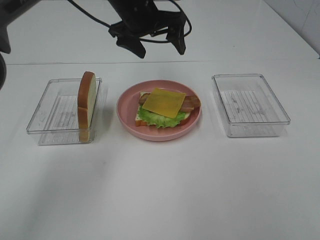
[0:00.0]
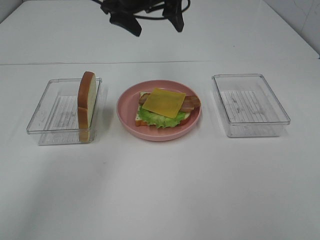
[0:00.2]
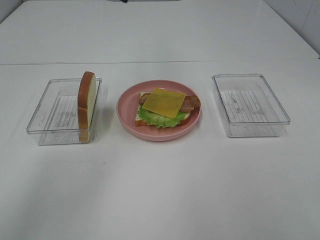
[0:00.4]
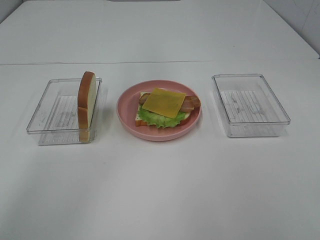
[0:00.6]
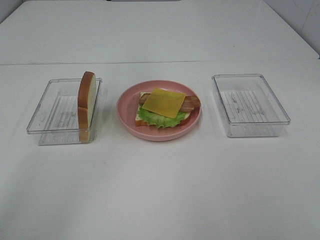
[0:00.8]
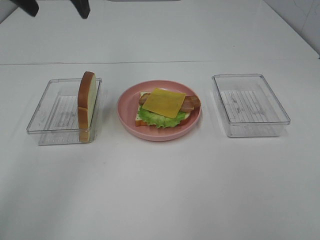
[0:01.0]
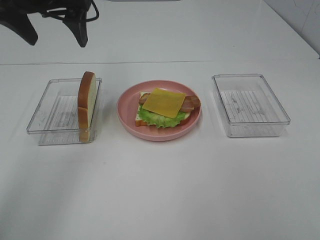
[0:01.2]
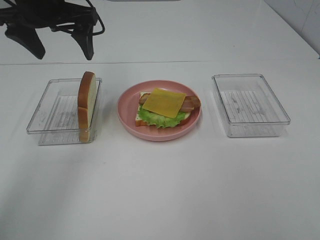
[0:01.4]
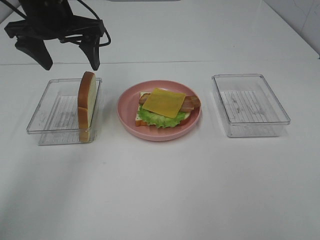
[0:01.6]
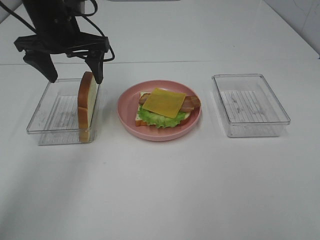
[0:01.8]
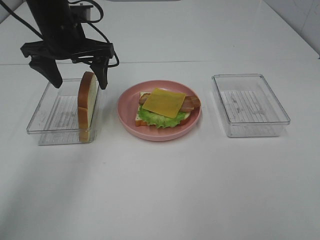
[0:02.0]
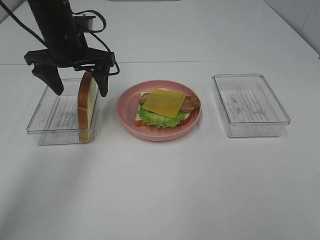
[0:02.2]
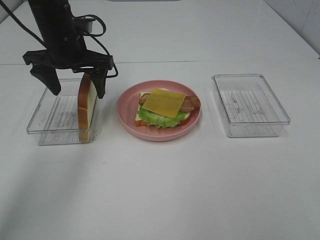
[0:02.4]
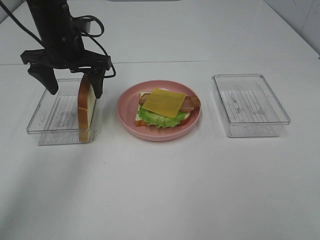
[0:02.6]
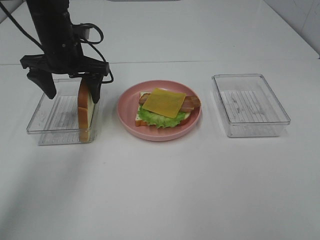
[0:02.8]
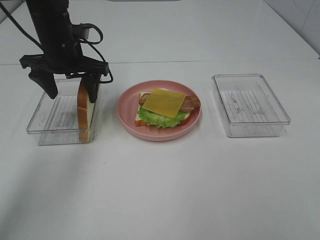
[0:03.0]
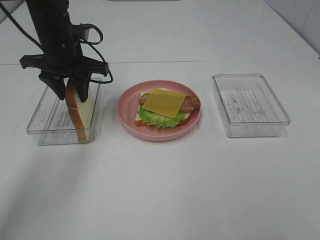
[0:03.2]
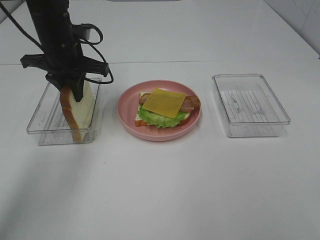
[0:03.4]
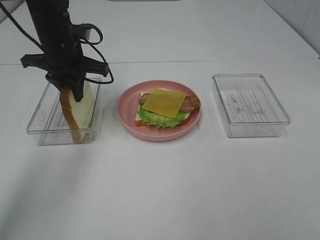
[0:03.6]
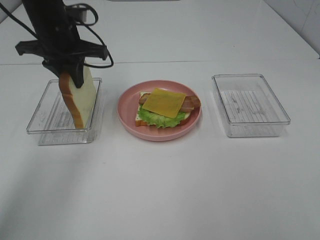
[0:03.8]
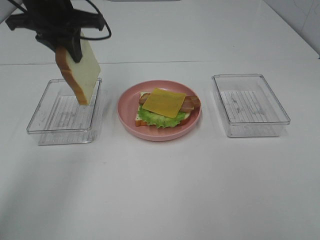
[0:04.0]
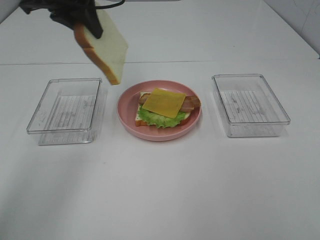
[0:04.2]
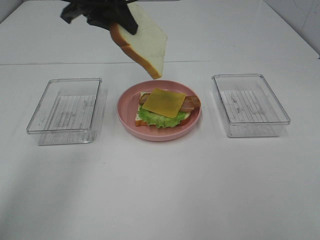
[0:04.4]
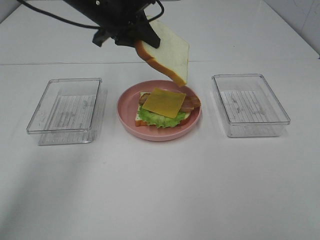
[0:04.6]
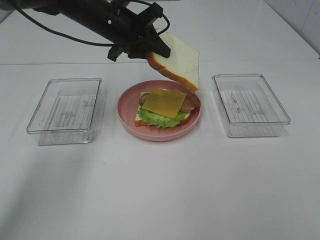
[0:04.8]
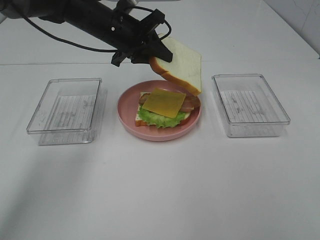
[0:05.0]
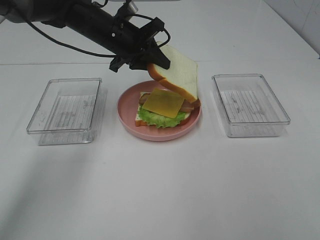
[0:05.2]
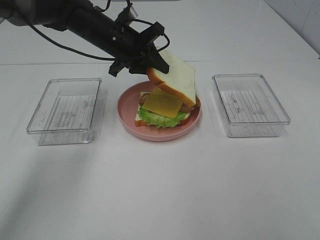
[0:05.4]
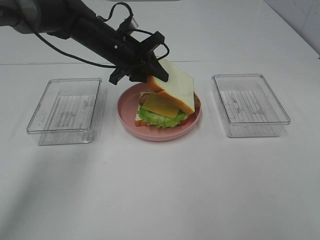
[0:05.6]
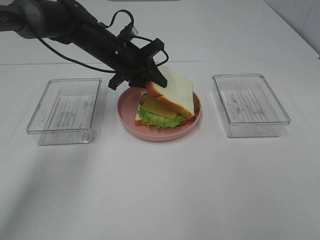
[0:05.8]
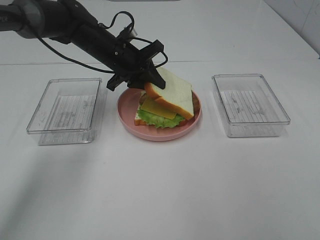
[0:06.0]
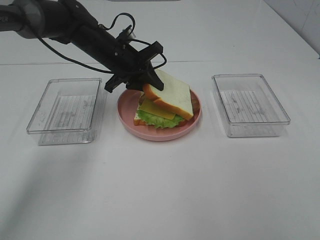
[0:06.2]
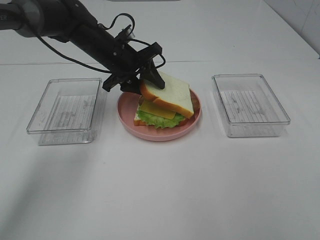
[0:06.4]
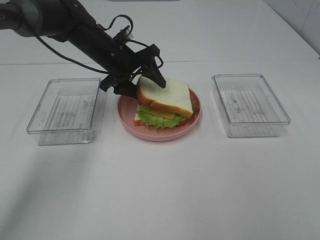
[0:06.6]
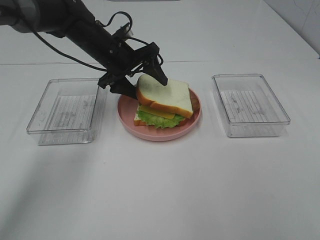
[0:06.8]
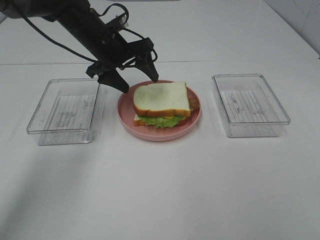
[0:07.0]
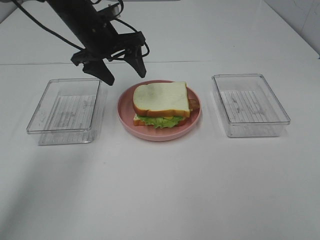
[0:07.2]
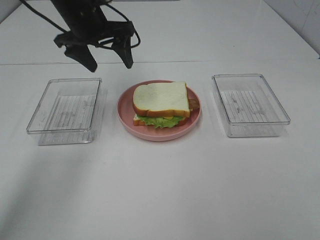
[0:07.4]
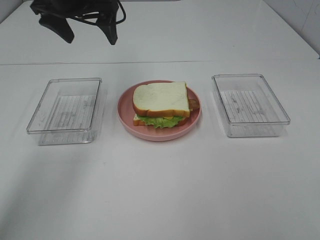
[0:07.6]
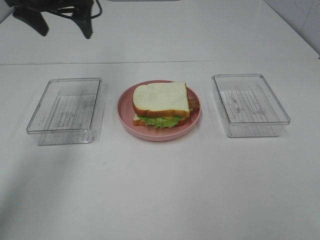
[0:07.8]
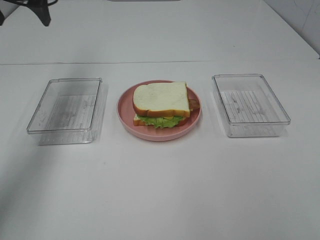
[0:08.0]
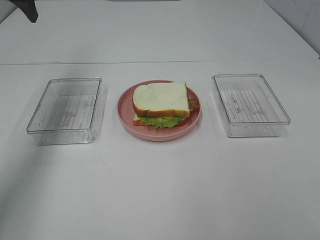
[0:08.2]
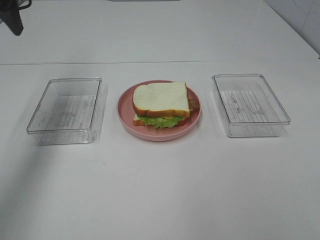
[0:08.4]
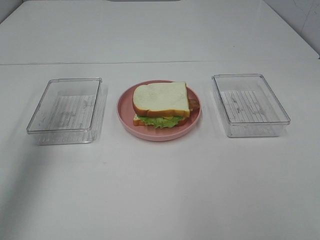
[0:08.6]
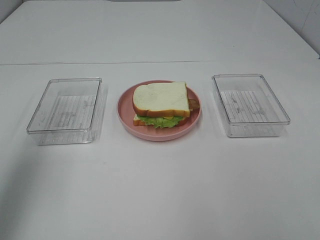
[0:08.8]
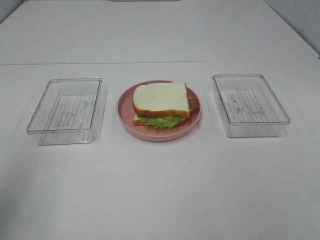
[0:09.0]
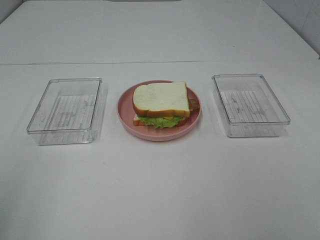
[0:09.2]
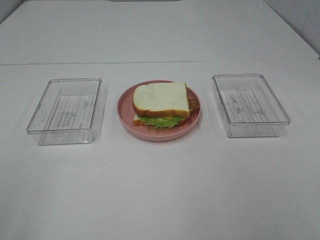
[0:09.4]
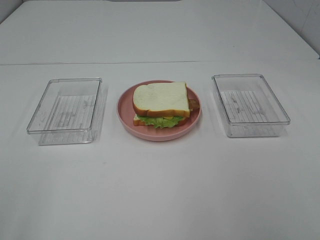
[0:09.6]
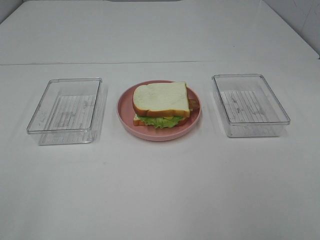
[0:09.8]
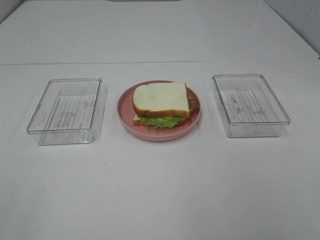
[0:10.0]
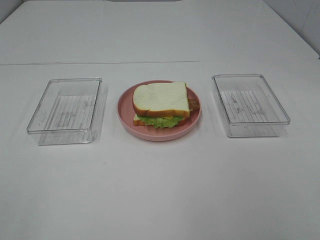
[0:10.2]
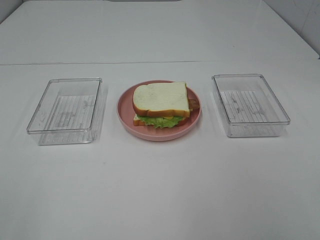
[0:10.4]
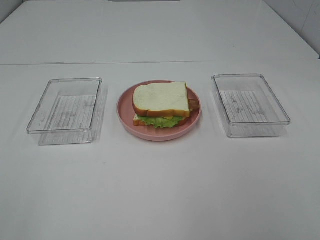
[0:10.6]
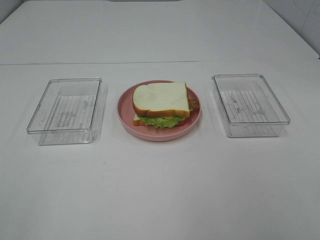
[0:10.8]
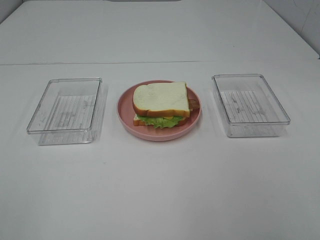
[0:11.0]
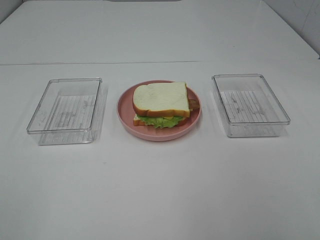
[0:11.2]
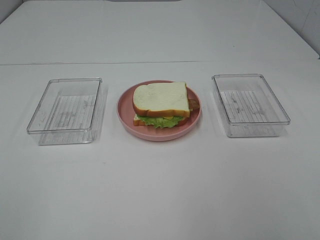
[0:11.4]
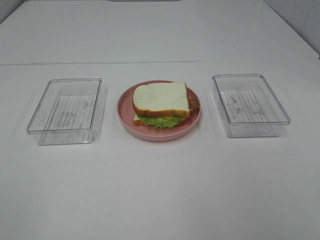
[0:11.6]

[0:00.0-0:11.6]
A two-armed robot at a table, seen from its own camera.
Task of the whole recording: Make sandwiches.
Step, 0:00.0 to 0:03.6: Left hand:grab the bread slice.
Step, 0:03.8 to 0:07.4: Left hand:place the bread slice on the cheese slice.
0:00.0 to 0:01.4: The left gripper is displaced to the left and backward by approximately 15 cm.
0:01.4 to 0:02.8: The left gripper goes approximately 10 cm downward.
0:02.8 to 0:04.4: The left gripper travels upward by approximately 10 cm, and closes up.
0:04.4 to 0:05.8: The left gripper moves downward, roughly 15 cm.
0:05.8 to 0:07.2: The left gripper moves upward, some 5 cm, and opens up.
0:07.2 to 0:08.8: The left gripper heads backward, to the left and upward, covering about 35 cm.
0:08.8 to 0:10.2: The left gripper goes approximately 20 cm backward.

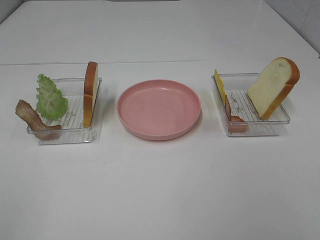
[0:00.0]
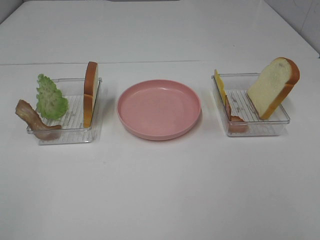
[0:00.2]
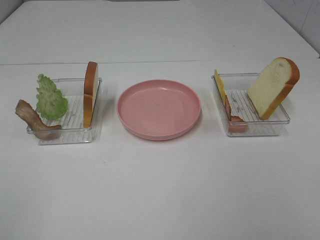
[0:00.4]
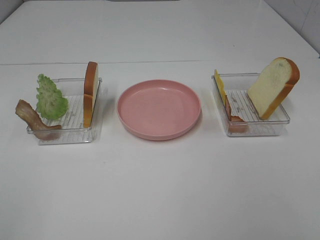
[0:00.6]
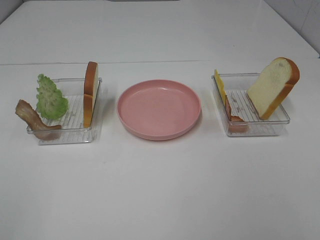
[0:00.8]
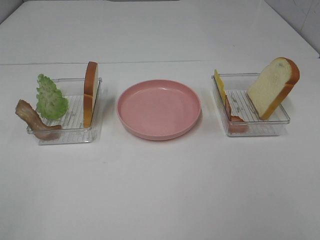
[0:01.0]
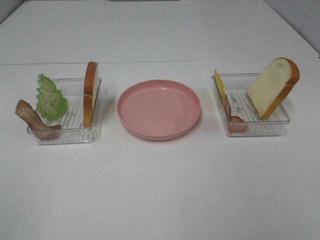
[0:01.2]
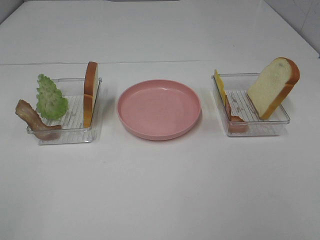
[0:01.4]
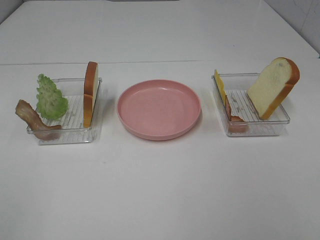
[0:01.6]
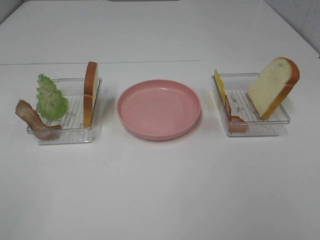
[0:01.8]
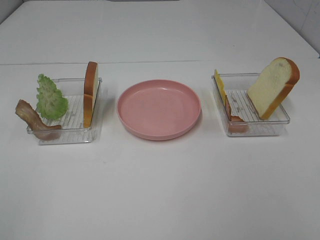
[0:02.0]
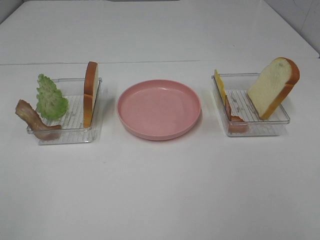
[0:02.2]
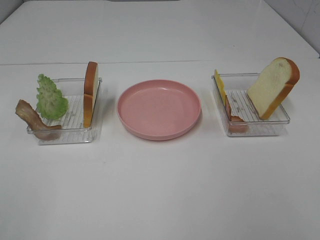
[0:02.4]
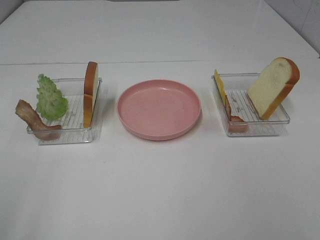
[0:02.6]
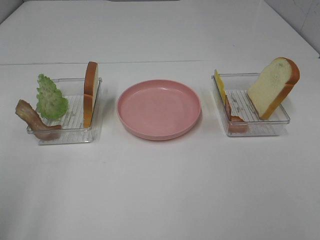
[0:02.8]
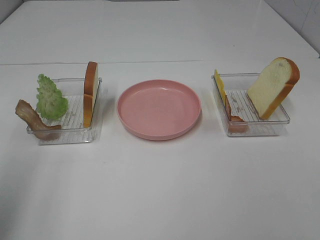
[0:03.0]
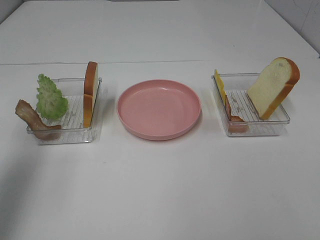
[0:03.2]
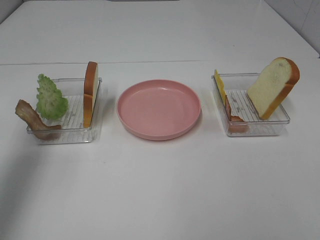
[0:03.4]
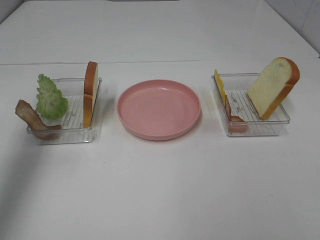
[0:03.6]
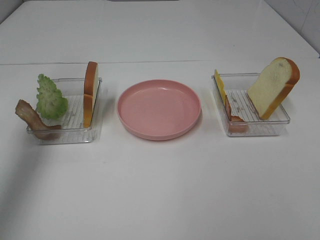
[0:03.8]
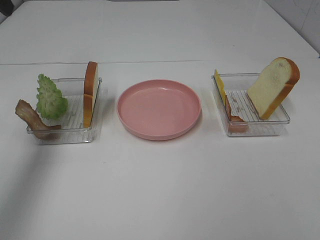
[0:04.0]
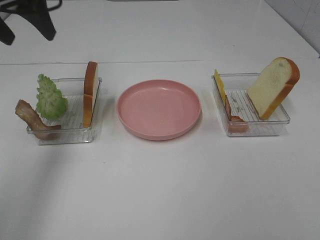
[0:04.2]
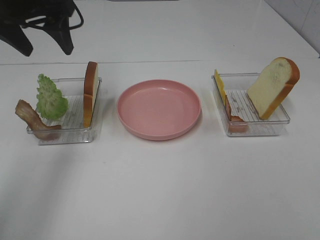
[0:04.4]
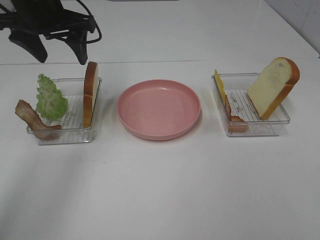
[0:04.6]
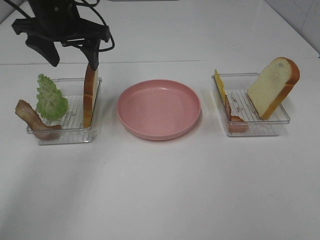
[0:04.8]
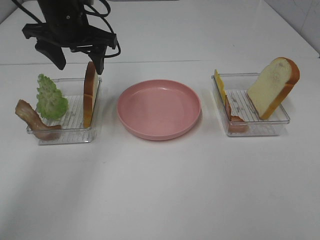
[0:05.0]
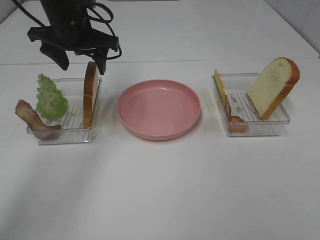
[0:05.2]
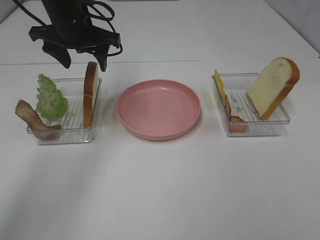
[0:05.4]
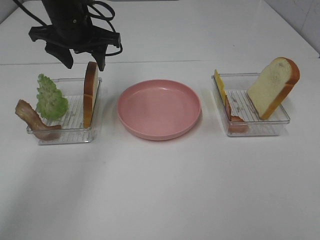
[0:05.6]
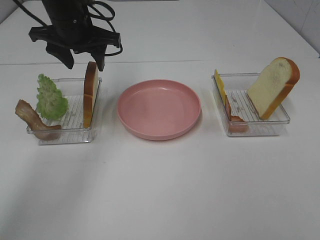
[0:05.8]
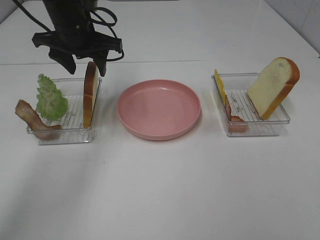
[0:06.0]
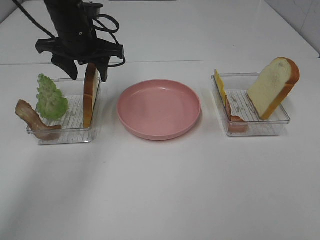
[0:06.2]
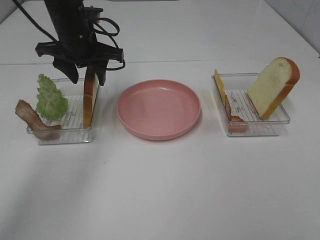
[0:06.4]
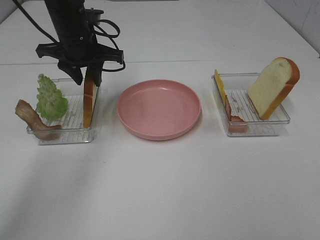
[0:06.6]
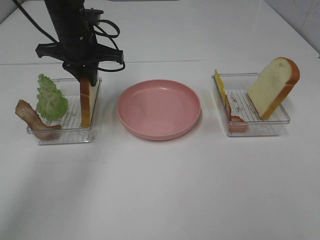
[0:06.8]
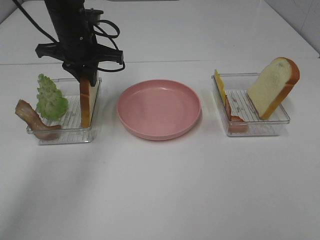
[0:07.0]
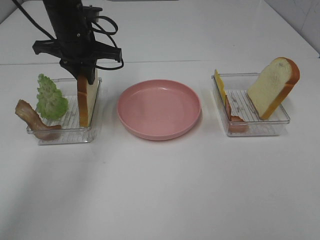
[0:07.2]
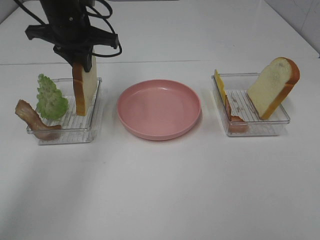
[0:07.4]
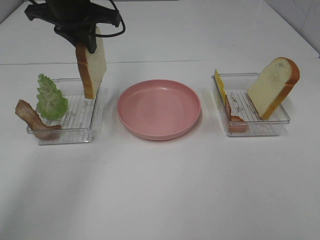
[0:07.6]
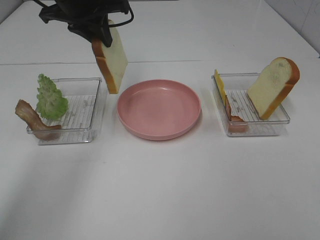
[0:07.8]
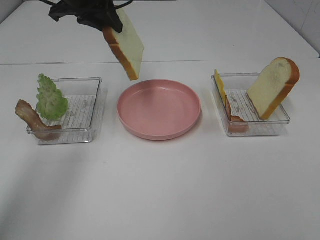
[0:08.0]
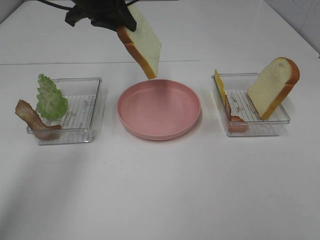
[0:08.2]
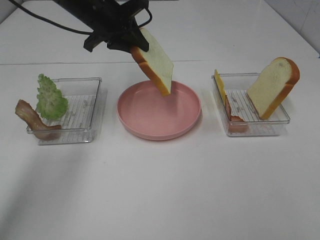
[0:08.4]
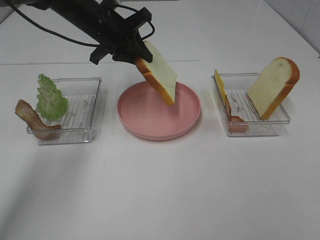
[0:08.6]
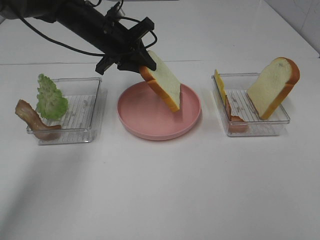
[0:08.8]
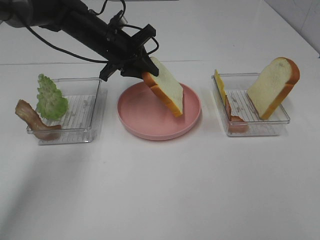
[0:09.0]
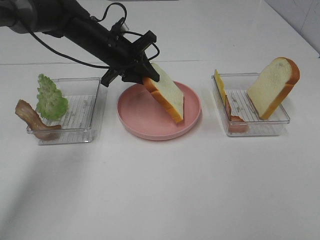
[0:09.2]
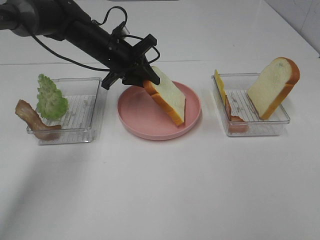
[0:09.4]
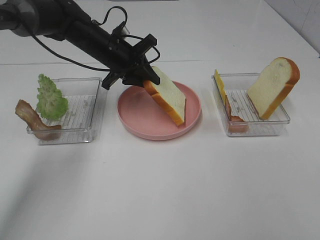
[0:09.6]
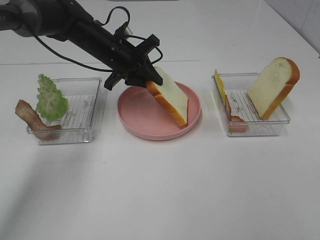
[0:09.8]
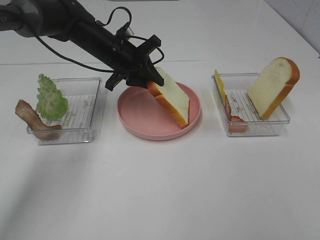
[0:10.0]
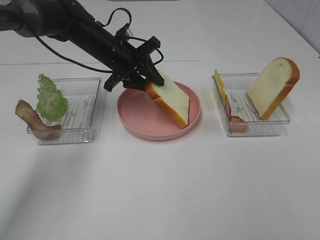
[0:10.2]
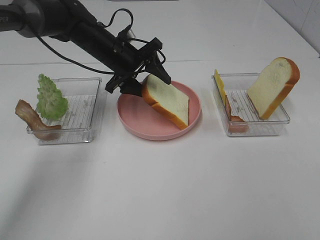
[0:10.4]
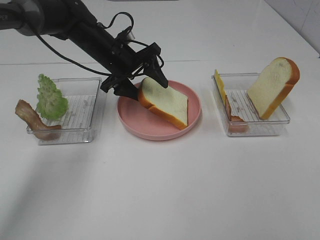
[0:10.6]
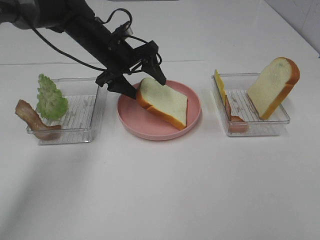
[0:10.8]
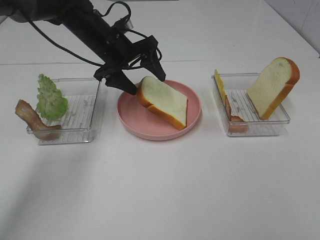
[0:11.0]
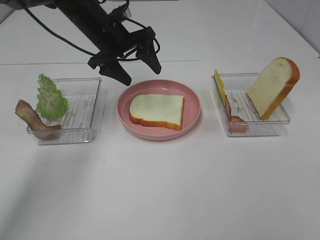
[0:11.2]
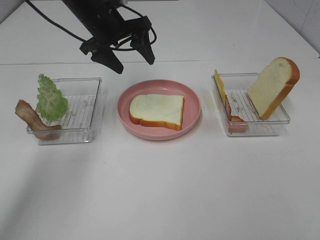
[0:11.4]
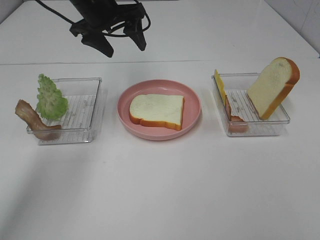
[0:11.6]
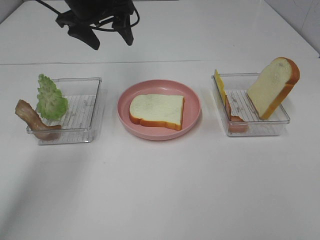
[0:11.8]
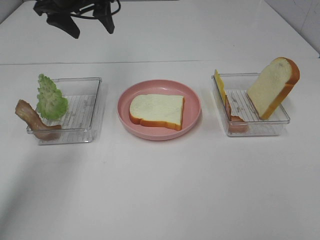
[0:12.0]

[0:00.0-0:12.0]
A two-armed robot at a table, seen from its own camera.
Task of the whole recording: Make sandwiches.
Step, 0:00.0 to 0:06.8: Left hand:grab the bread slice.
Step, 0:07.0 to 0:11.2: Left hand:place the bread slice on the plate.
0:00.0 to 0:01.6: Both grippers stay about where they are.
0:01.6 to 0:03.0: The left gripper goes approximately 15 cm forward.
0:03.0 to 0:04.4: The left gripper goes approximately 25 cm forward.
0:04.4 to 0:06.0: The left gripper moves downward and to the right, some 10 cm.
0:06.0 to 0:07.6: The left gripper goes about 5 cm upward, and closes its fingers.
0:07.6 to 0:09.0: The left gripper shifts about 10 cm downward.
0:09.0 to 0:10.4: The left gripper opens its fingers.
0:10.4 to 0:12.0: The left gripper moves upward and to the left, some 15 cm.
